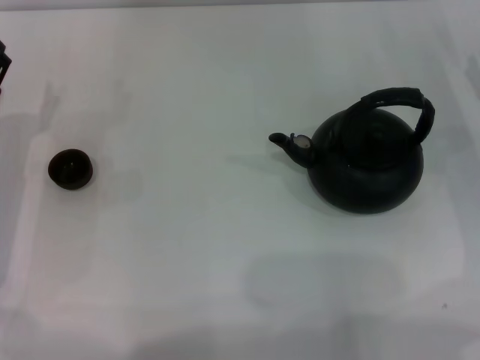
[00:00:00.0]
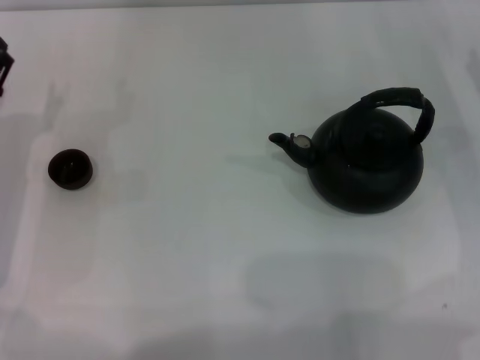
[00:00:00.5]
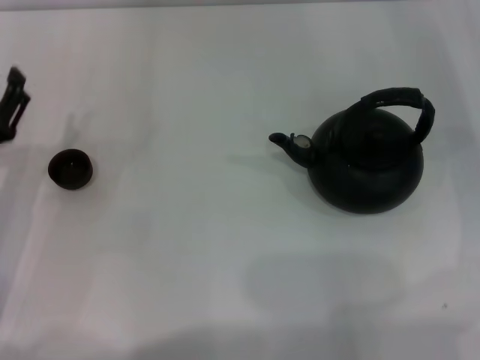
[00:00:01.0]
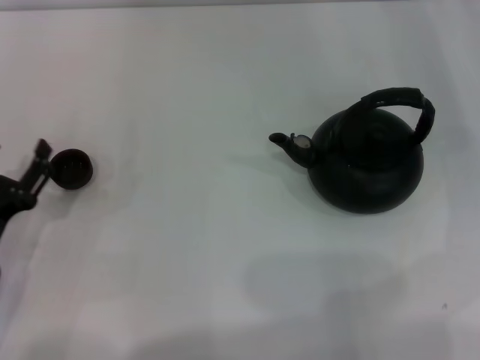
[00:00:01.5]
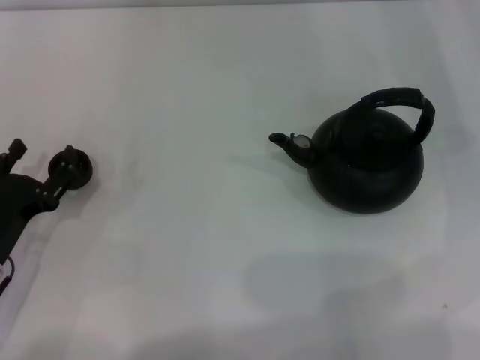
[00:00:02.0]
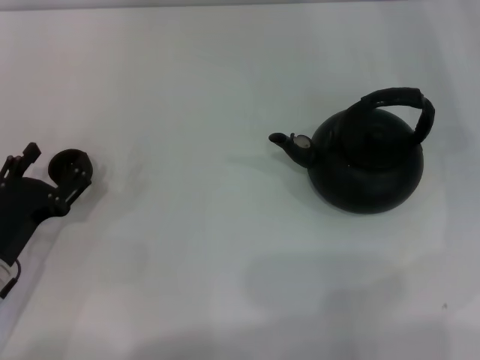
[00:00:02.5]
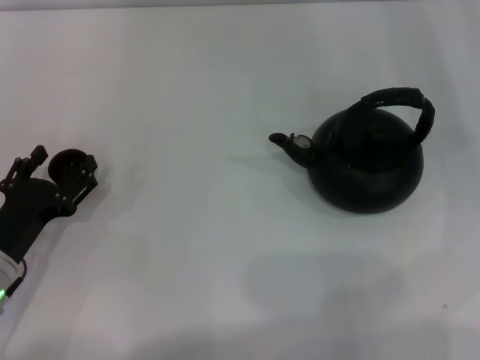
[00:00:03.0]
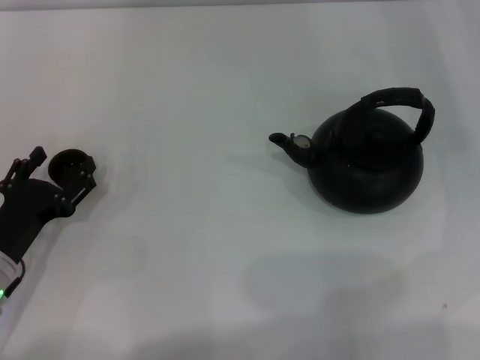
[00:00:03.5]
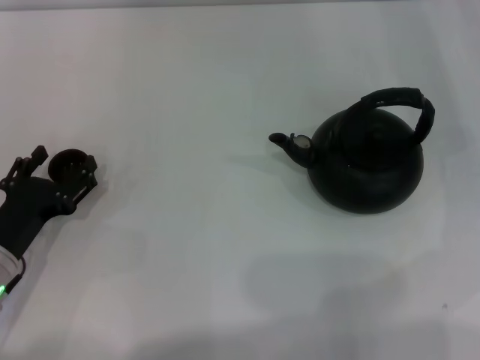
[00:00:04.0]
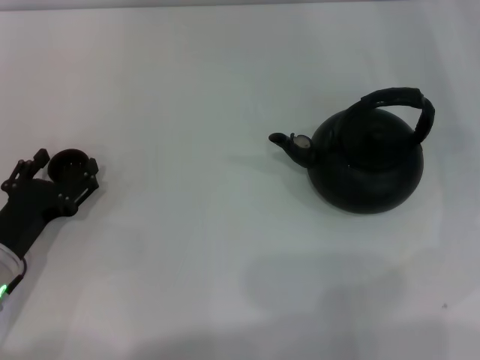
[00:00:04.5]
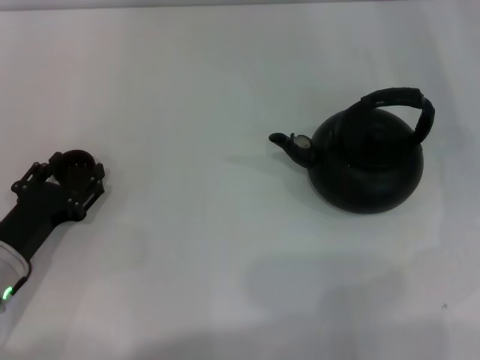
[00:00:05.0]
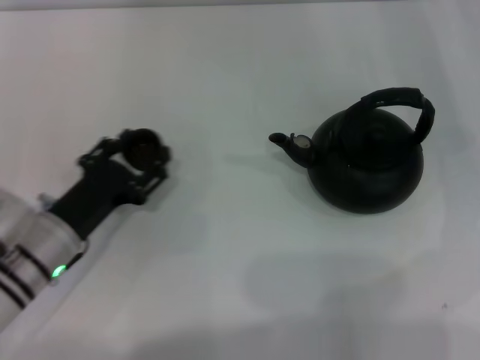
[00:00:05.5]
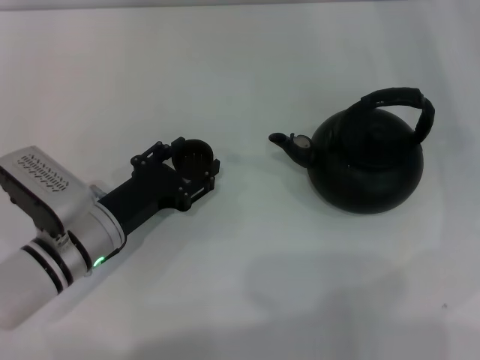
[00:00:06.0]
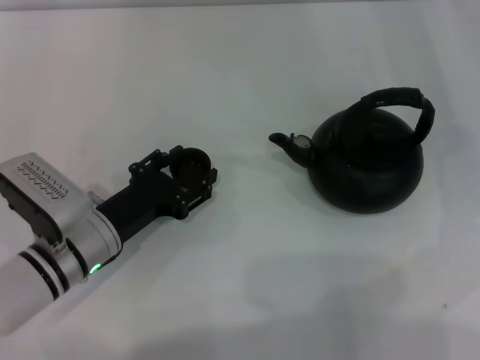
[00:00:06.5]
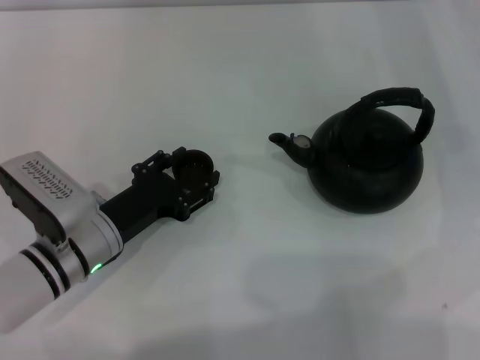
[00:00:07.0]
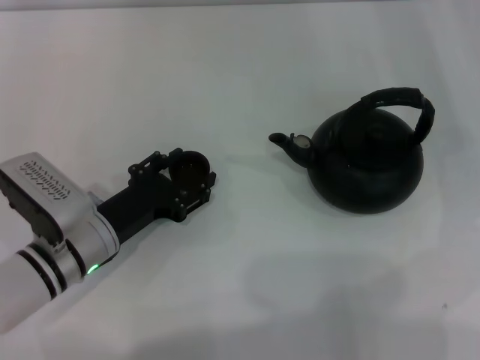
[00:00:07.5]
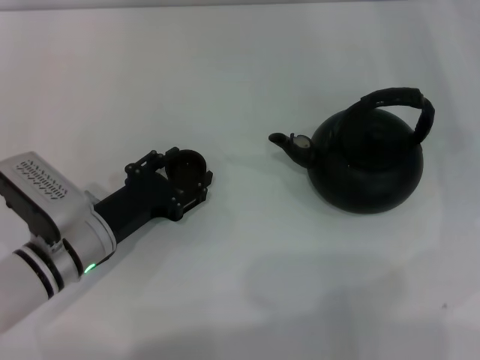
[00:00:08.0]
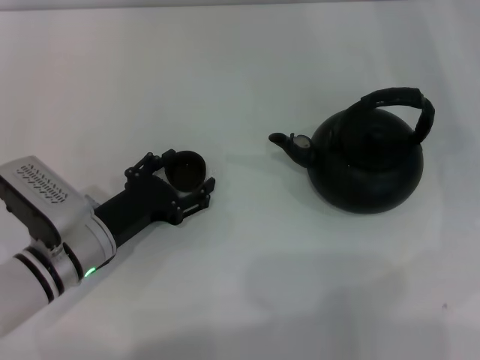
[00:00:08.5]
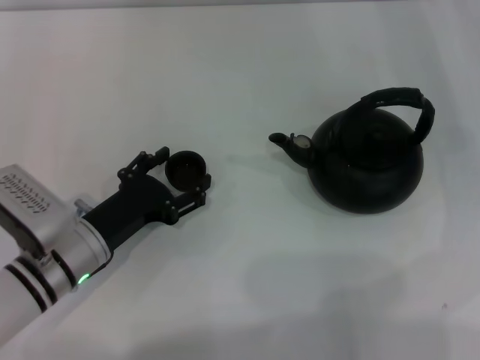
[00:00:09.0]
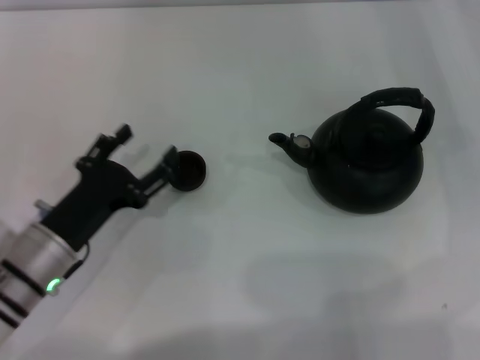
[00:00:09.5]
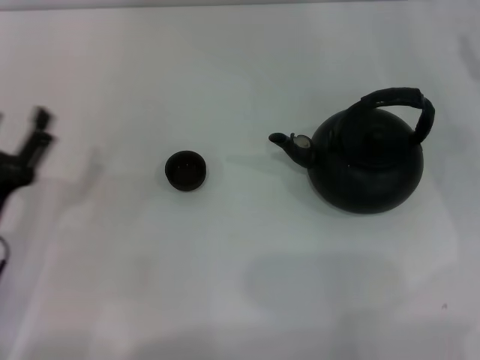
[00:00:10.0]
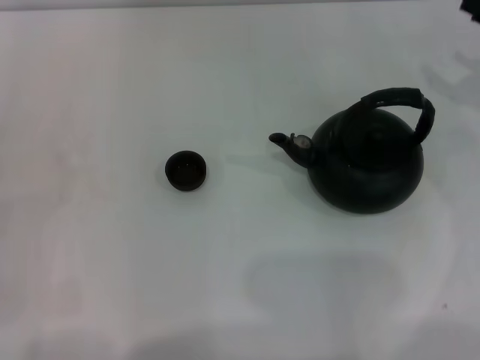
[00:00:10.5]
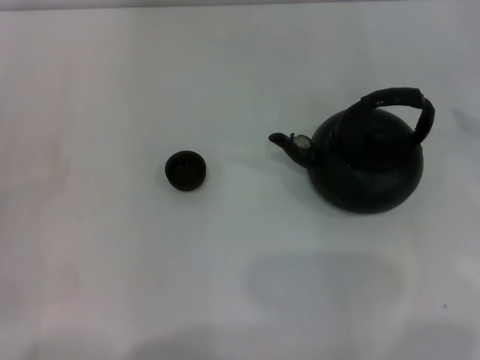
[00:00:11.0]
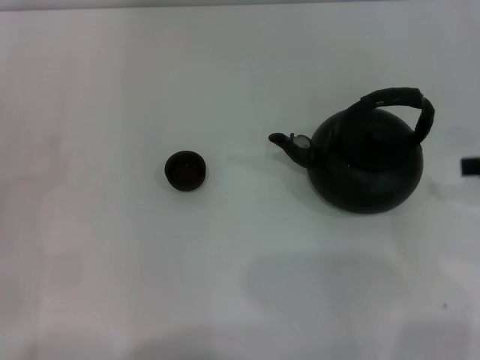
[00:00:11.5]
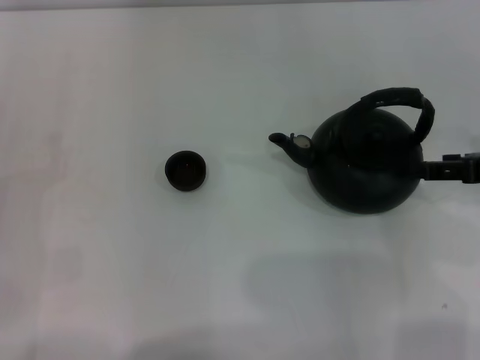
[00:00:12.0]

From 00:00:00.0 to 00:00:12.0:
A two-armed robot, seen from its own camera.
Task of the whole recording: Grasp the handle of the teapot with one hand and pour tea into the teacup.
Step, from 00:00:00.0 to 00:00:05.0: Pick up the teacup with the left gripper.
Step, from 00:00:05.5 to 00:00:09.5: Place the teacup in the center of view with the left gripper.
From 00:00:00.0 to 00:00:02.0: The left gripper moves backward, some 10 cm.
From 00:00:02.0 to 00:00:04.0: The grippers stay close to where they were, moving slightly.
From 00:00:04.0 to 00:00:06.0: The left gripper shifts about 10 cm to the right, and closes.
From 00:00:06.0 to 00:00:08.0: Both grippers stay put.
From 00:00:08.0 to 00:00:10.0: The left gripper heads to the left and backward, covering approximately 10 cm, and opens up.
From 00:00:10.0 to 00:00:12.0: The right gripper goes some 10 cm backward and upward. Meanwhile the left gripper goes some 5 cm to the left.

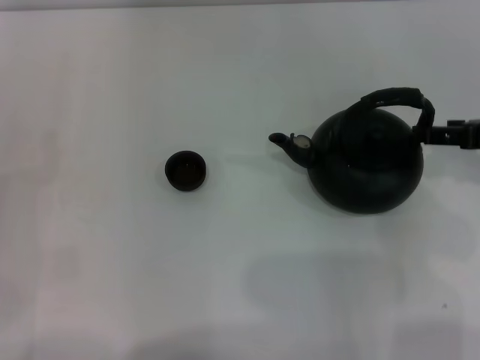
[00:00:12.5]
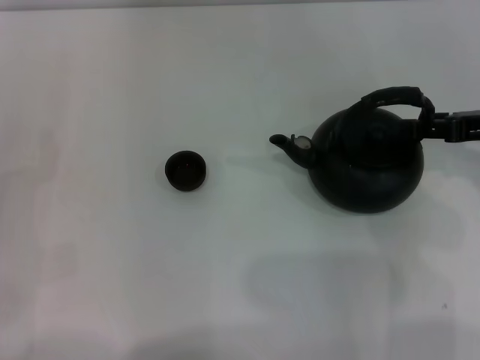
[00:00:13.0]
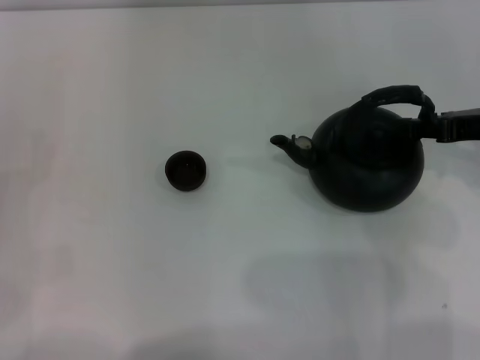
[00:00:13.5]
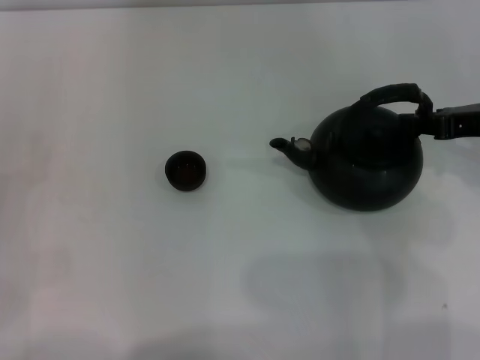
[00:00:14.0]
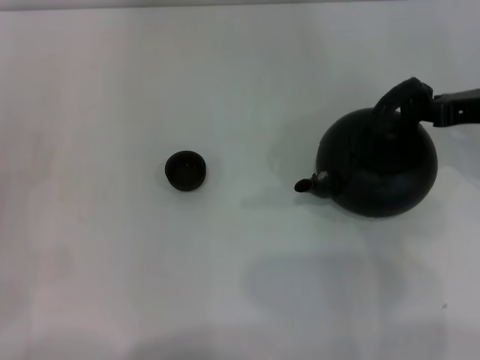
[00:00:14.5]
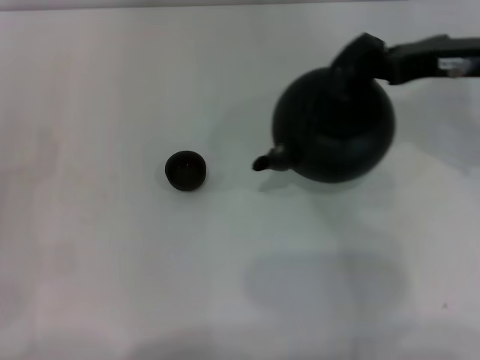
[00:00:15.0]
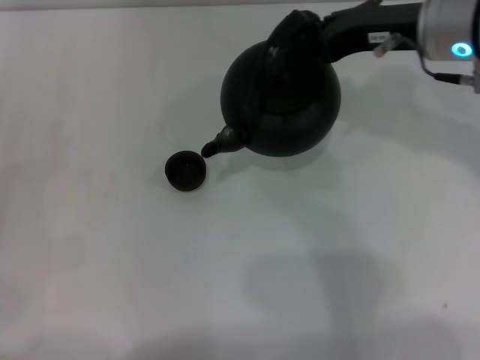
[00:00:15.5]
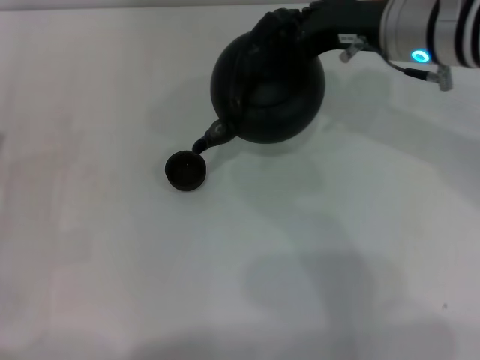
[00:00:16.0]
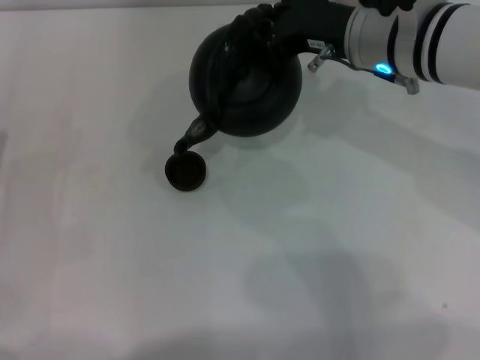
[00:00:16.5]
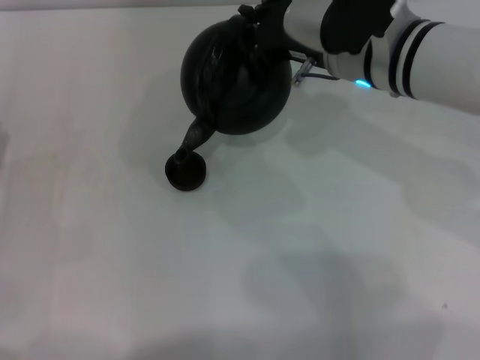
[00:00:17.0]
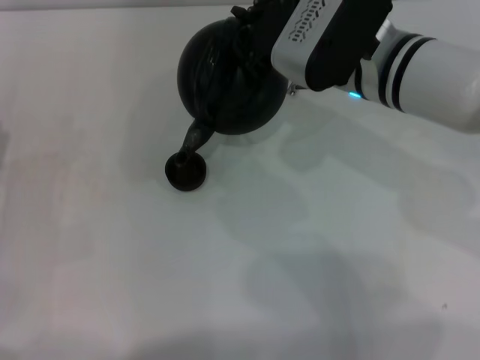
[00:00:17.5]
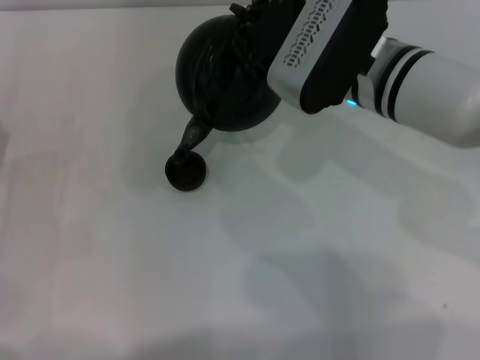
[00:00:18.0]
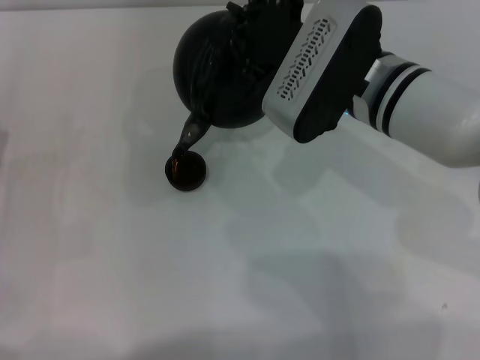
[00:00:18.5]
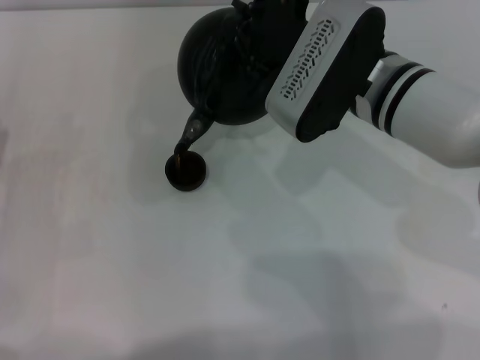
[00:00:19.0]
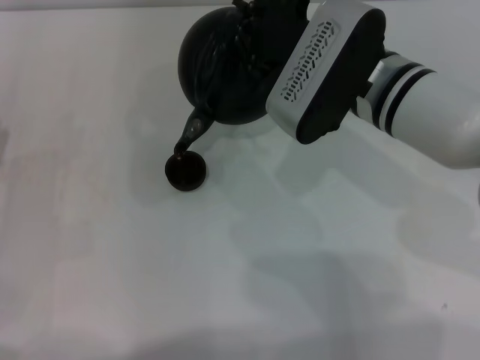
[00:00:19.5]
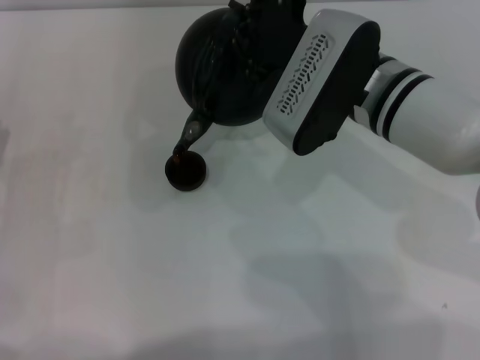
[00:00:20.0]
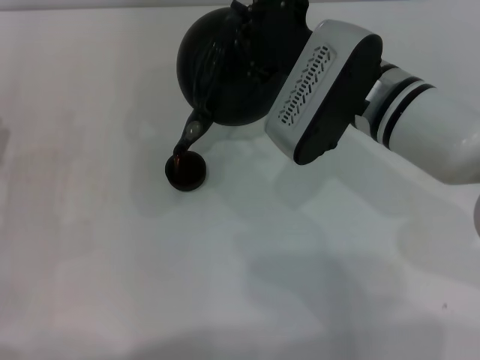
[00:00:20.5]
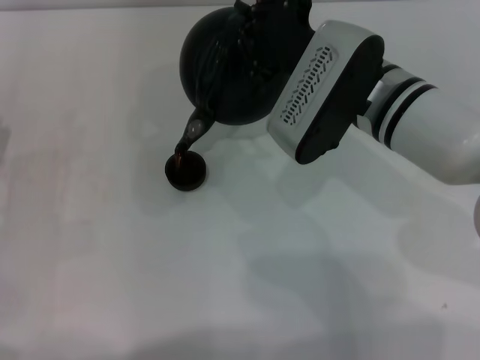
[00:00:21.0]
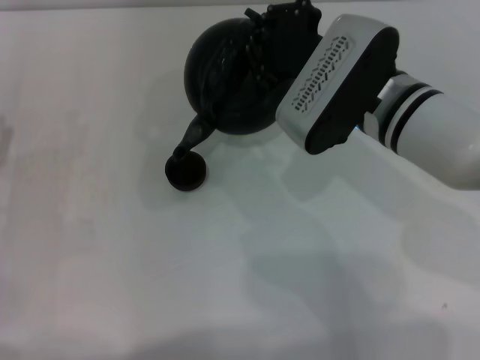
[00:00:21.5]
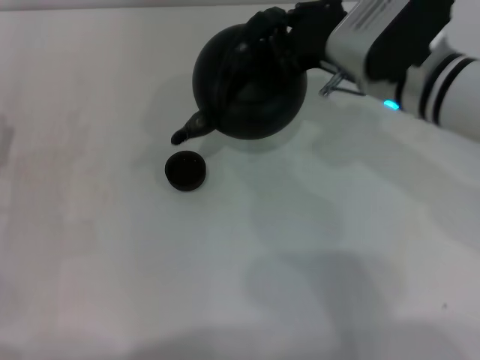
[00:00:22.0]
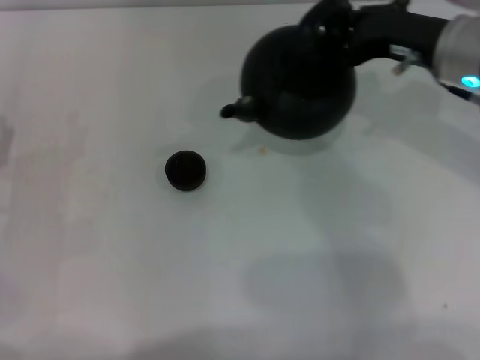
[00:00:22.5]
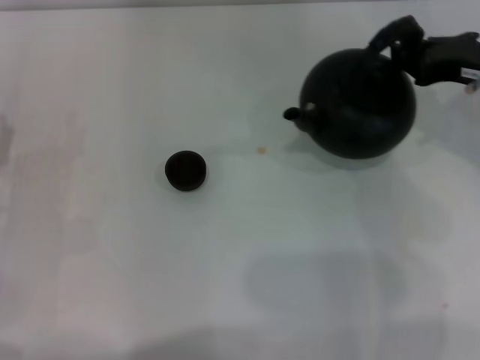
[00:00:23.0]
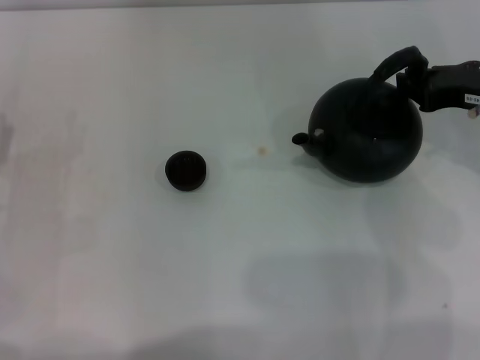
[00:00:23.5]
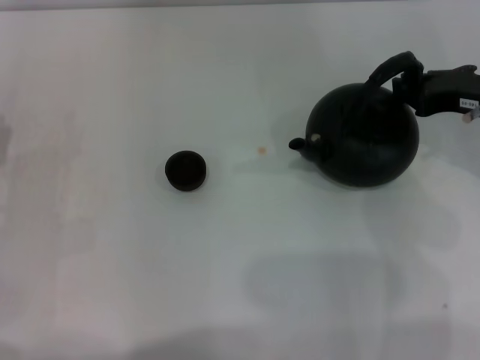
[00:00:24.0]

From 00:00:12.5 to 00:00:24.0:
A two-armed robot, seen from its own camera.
Task of the whole recording: Grasp the handle of the teapot with one hand and pour tea into the teacup.
Step, from 00:00:12.5 to 00:00:15.0: Pick up the teapot with the right gripper.
Step, from 00:00:15.5 to 00:00:22.0: Pour tea into the teacup with the right gripper.
From 00:00:12.5 to 00:00:14.5: The right gripper closes up.
From 00:00:14.5 to 00:00:16.5: The right gripper moves to the left, approximately 15 cm.
From 00:00:18.5 to 00:00:20.0: The two grippers keep their place.
From 00:00:22.0 to 00:00:24.0: The right gripper is displaced to the right by about 15 cm.

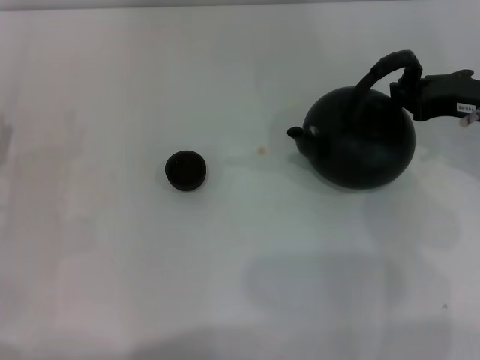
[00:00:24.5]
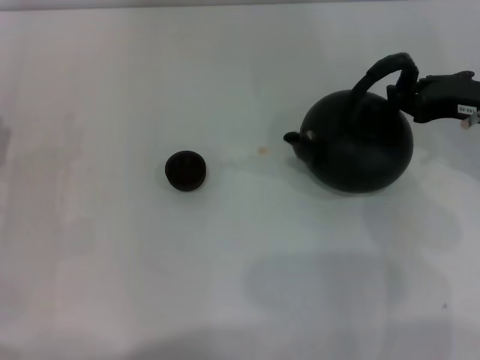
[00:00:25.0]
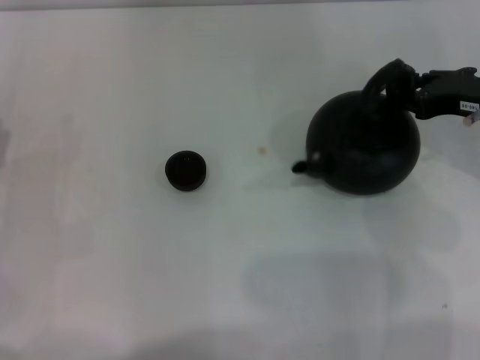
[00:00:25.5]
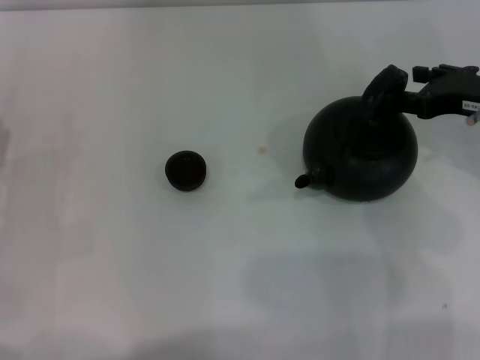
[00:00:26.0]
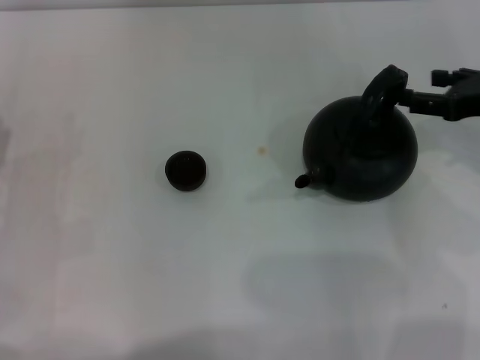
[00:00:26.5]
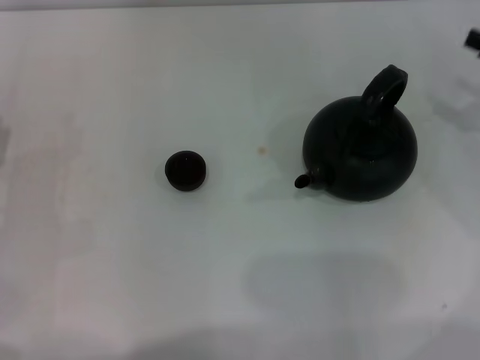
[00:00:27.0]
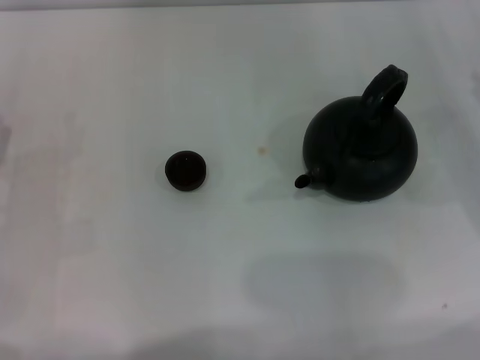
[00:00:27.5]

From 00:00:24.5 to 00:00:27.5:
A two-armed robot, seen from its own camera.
Task of the whole recording: Grasp the handle of the teapot with one hand and pour tea into the teacup.
From 00:00:24.5 to 00:00:26.0: The right gripper opens its fingers.
From 00:00:26.0 to 00:00:27.5: The right gripper shifts approximately 10 cm to the right and downward, and opens up.
